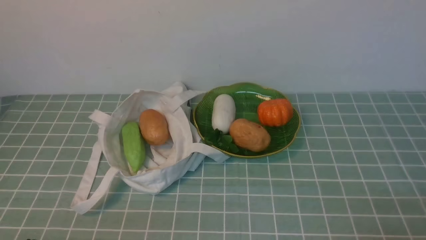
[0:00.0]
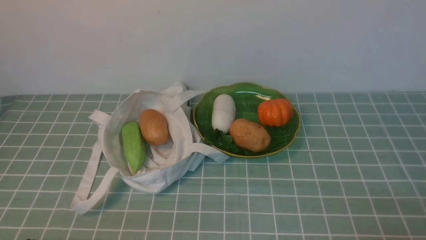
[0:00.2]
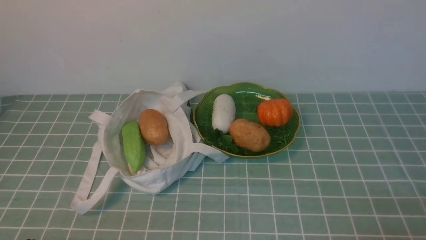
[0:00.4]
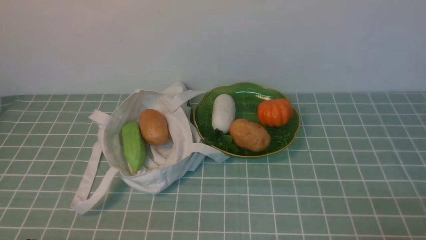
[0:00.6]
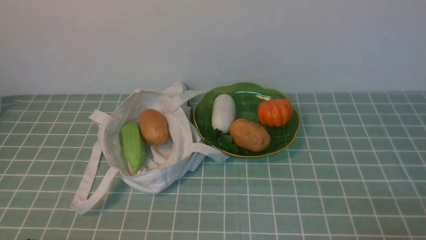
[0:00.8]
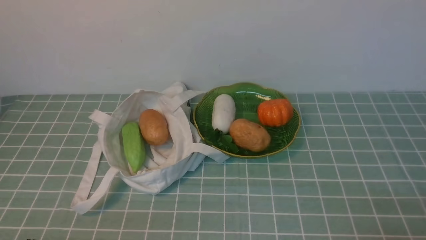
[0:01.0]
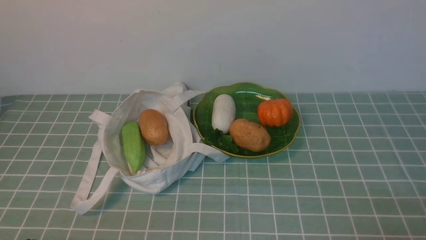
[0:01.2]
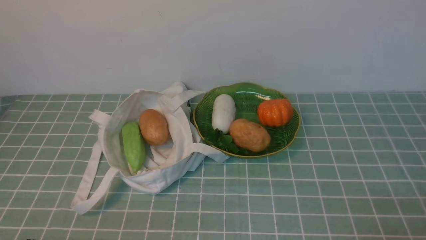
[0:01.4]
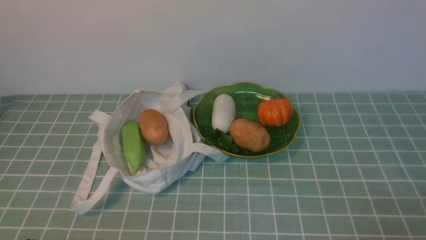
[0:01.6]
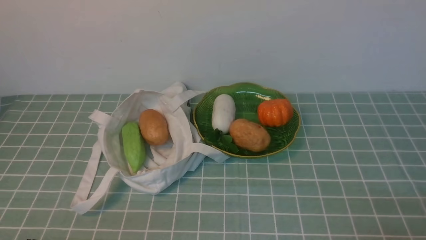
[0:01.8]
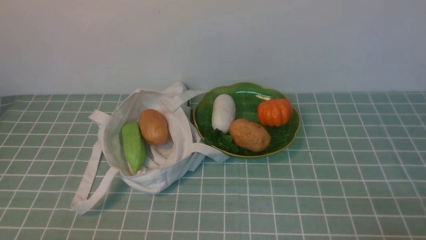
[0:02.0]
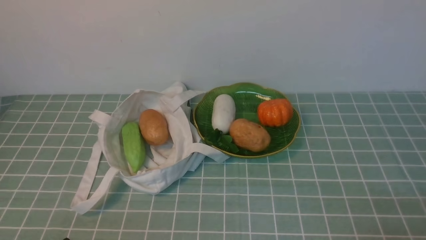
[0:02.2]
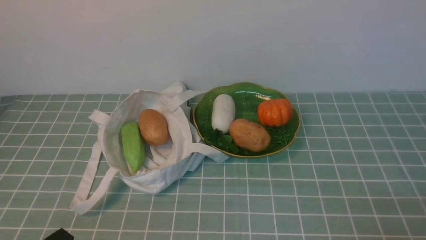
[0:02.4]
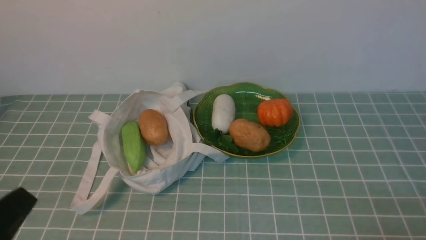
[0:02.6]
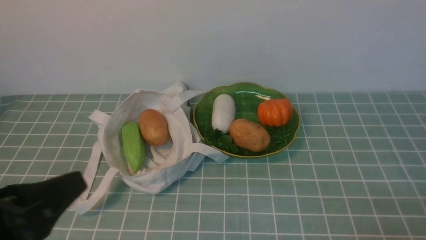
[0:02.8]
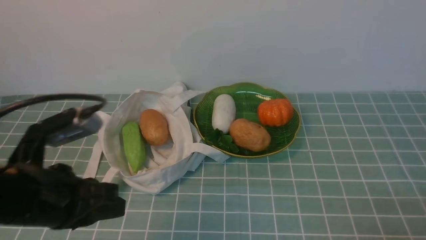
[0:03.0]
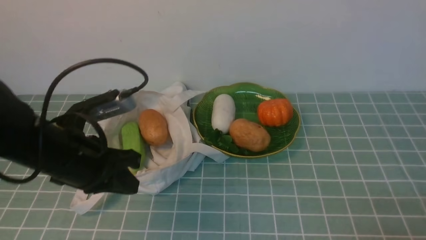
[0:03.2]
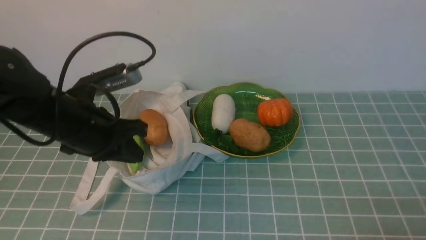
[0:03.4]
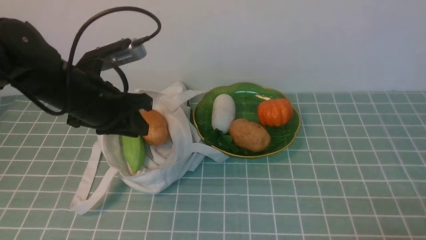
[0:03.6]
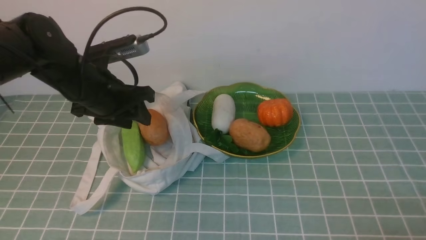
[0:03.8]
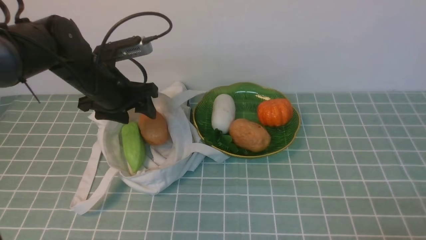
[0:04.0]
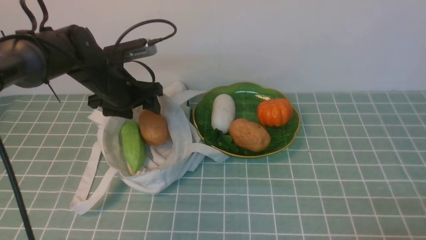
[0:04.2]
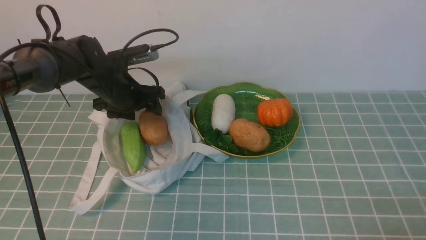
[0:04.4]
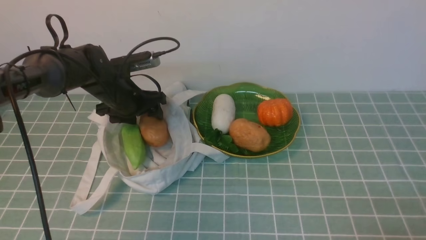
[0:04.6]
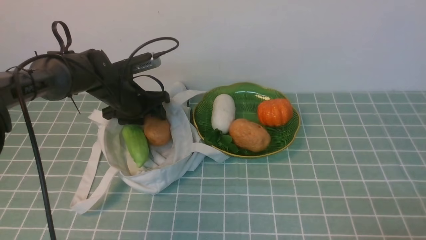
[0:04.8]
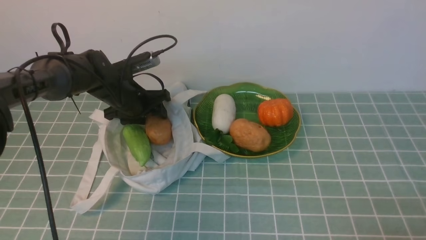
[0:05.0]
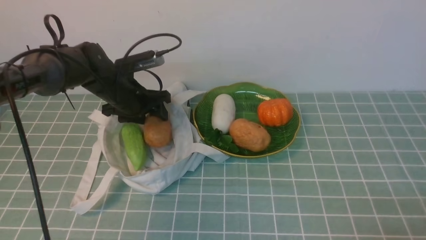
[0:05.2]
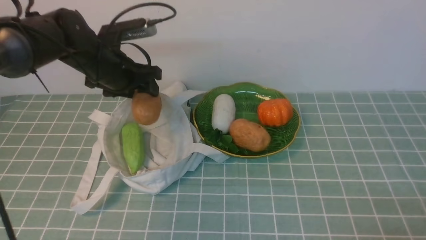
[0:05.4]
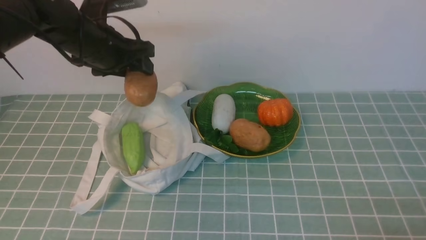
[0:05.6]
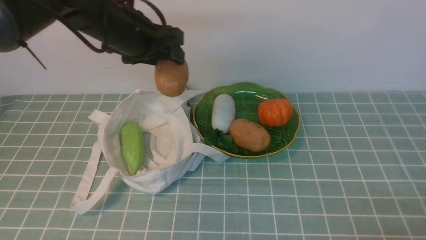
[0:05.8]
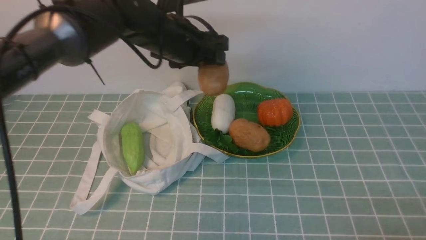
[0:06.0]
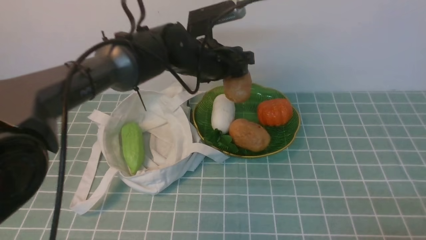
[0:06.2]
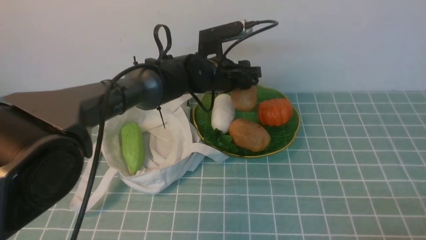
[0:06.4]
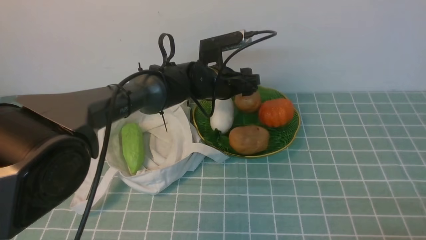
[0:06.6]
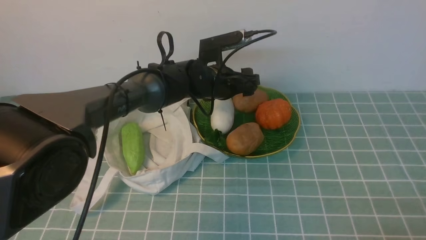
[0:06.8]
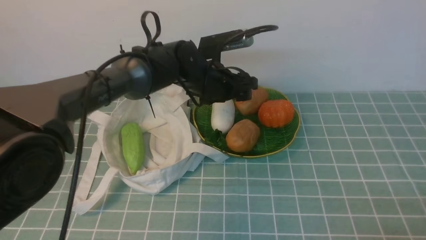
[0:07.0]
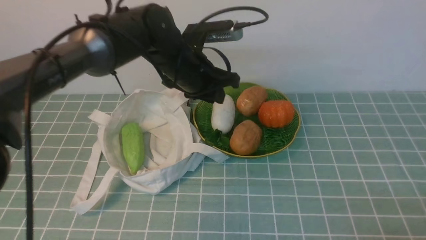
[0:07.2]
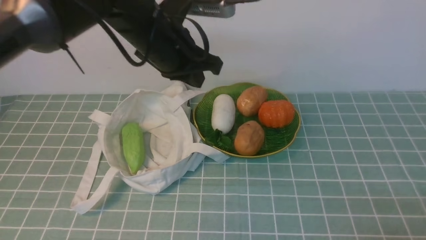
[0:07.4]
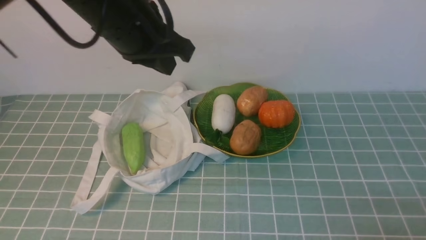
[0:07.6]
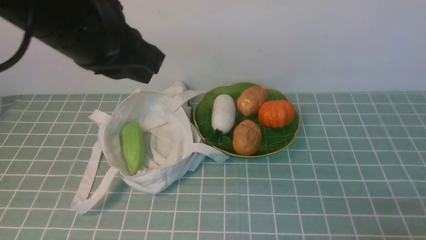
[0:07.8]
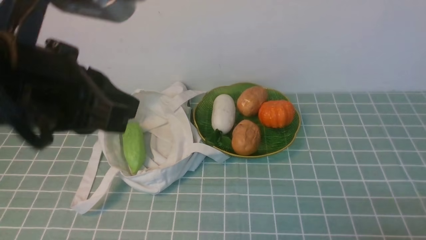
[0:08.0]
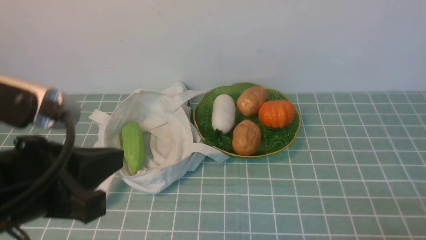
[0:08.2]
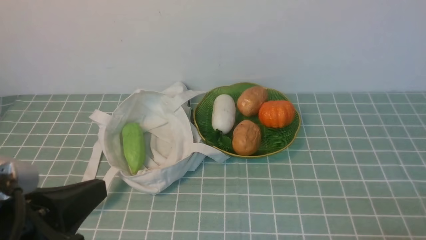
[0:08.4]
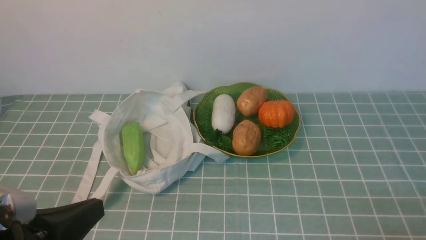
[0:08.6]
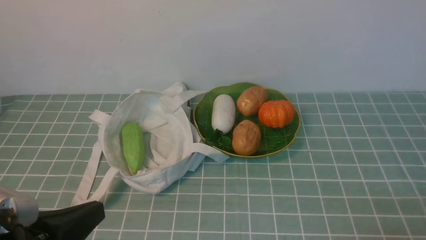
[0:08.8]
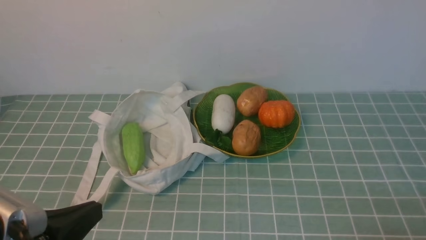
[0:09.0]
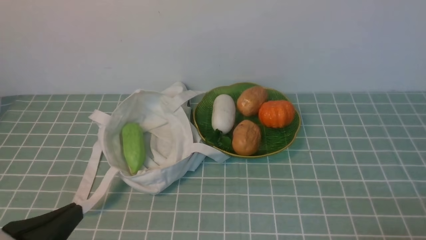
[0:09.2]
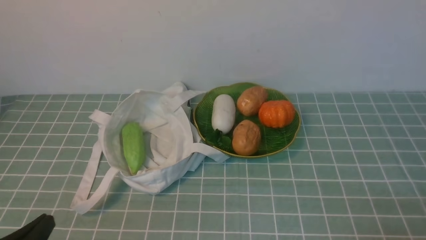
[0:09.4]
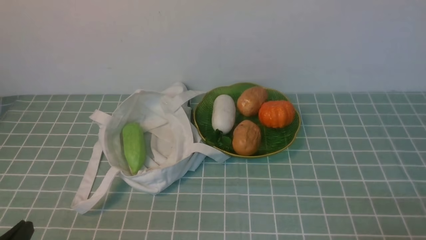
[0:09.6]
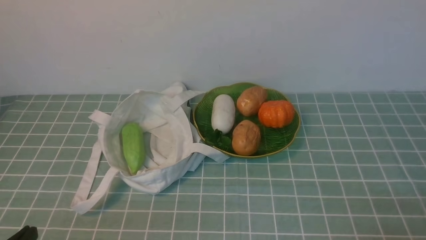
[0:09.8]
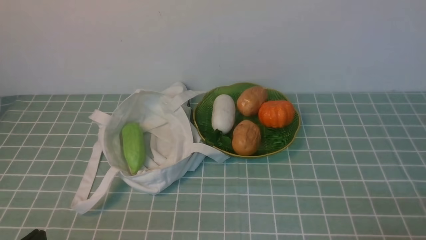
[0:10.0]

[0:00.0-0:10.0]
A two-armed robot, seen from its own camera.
Task of the whole recording: take vegetables from cloth bag on blue coffee tablecloth place on plate.
Step, 0:00.0 to 0:05.0: Grasp the potato with left gripper.
Step, 0:05.2 to 0:06.4: Place the potato on the plate with left gripper.
0:00.0 to 0:01.4: The two grippers keep their place.
0:01.4 to 0:02.8: The left gripper is displaced upward and forward by about 15 cm.
0:02.8 to 0:04.2: The left gripper travels forward by approximately 30 cm, and opens its fingers.
0:04.2 to 0:05.8: The left gripper is displaced upward and to the right by about 10 cm.
0:05.8 to 0:07.2: The left gripper shifts roughly 5 cm to the right, travels downward and back again, about 10 cm each way, and closes its fingers.
0:07.2 to 0:08.6: The left gripper shifts approximately 35 cm backward and to the left.
0:08.6 to 0:10.0: The left gripper shifts approximately 10 cm downward.

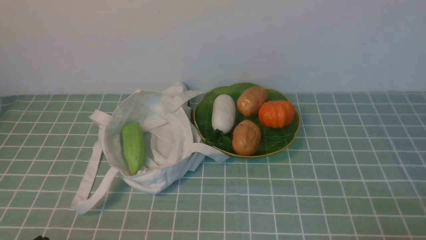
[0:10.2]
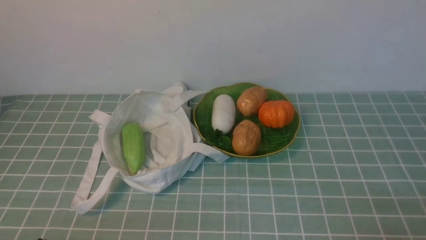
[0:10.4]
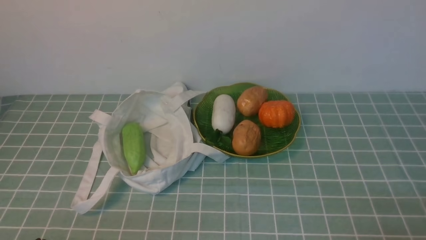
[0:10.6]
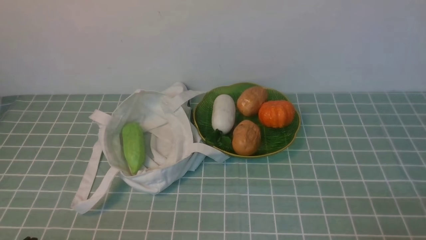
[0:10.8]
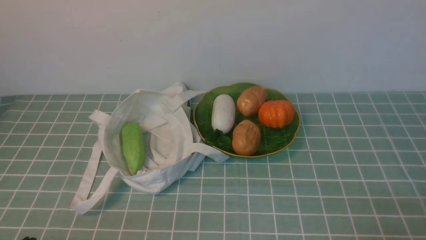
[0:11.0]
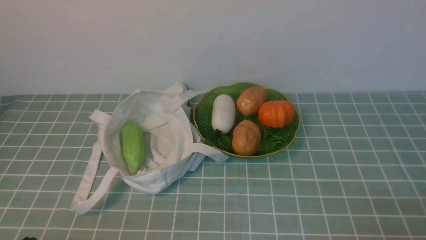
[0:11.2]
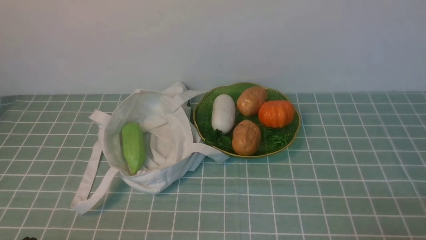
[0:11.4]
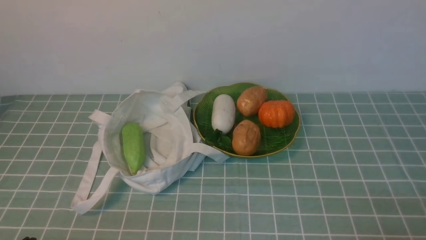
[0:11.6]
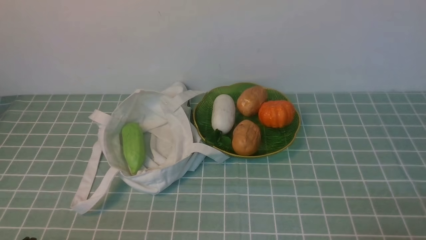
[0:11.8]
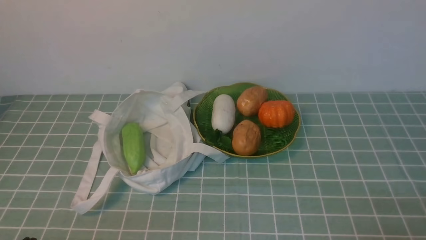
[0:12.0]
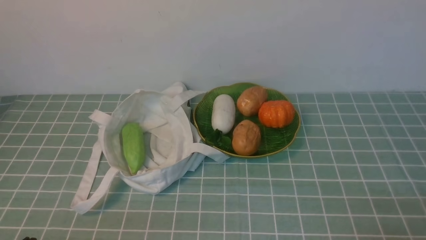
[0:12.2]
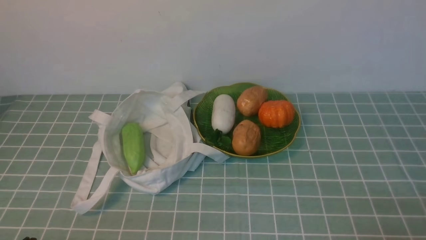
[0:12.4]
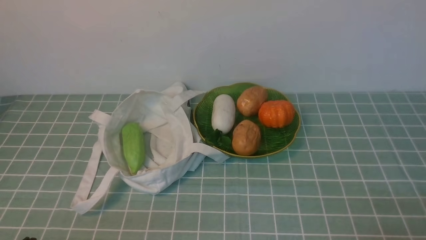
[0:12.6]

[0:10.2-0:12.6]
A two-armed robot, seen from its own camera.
Task of the whole recording: take vegetables from cloth bag on blue coffee tablecloth place on plate.
0:11.4 to 0:12.6: Both grippers stay about where they are.

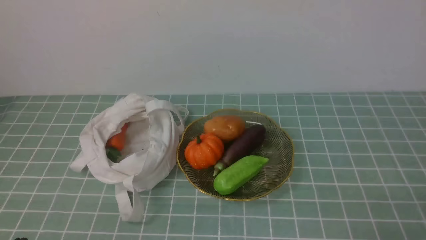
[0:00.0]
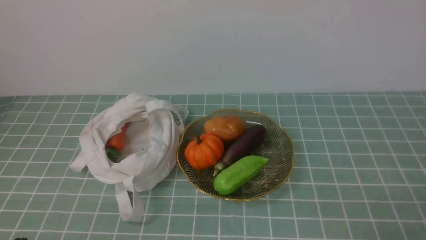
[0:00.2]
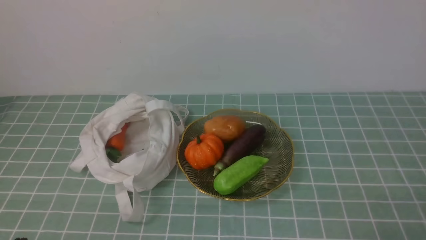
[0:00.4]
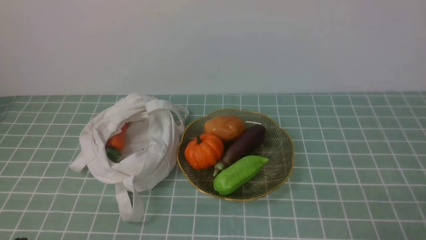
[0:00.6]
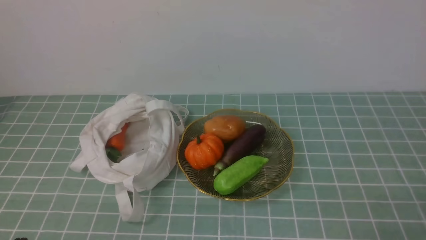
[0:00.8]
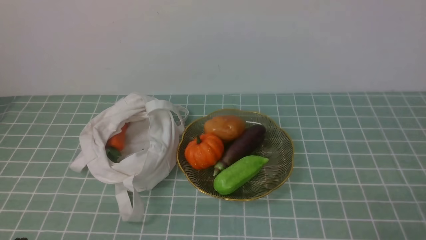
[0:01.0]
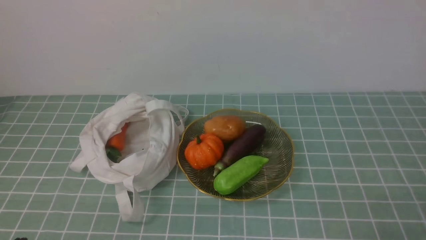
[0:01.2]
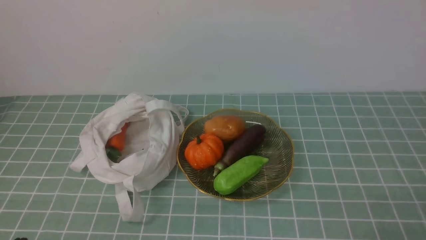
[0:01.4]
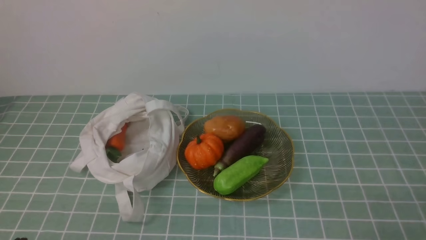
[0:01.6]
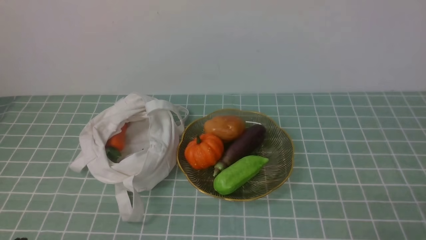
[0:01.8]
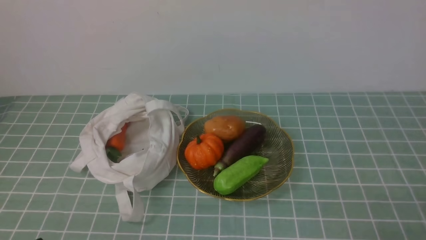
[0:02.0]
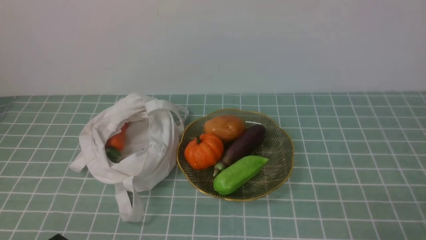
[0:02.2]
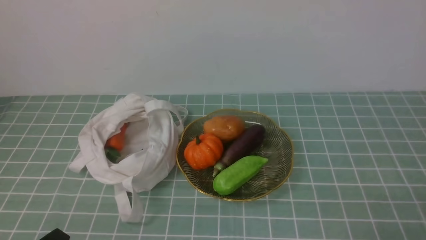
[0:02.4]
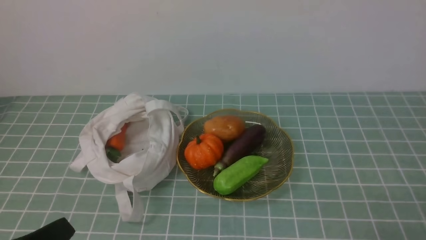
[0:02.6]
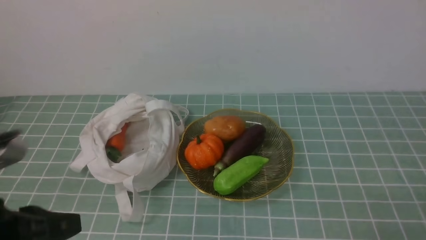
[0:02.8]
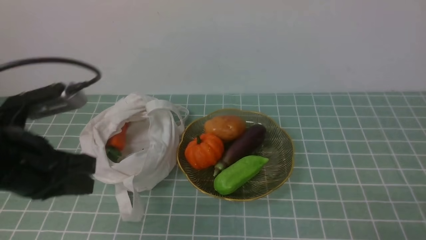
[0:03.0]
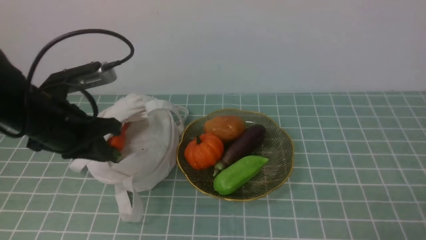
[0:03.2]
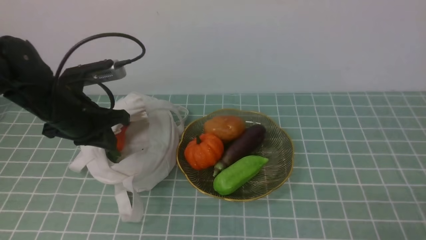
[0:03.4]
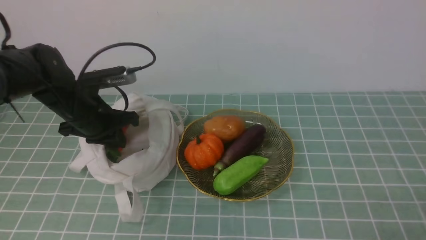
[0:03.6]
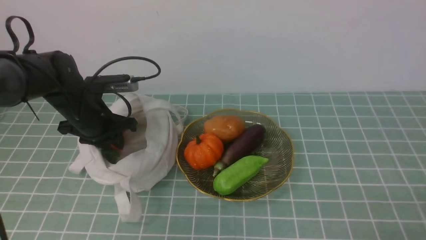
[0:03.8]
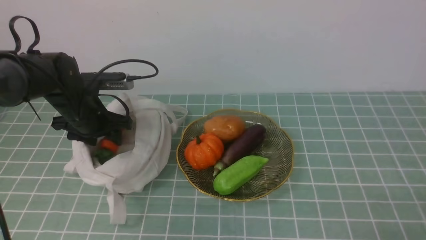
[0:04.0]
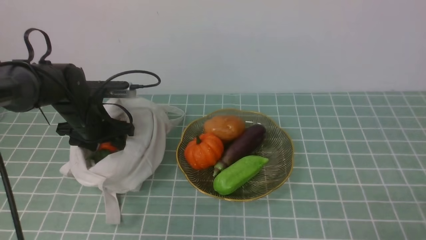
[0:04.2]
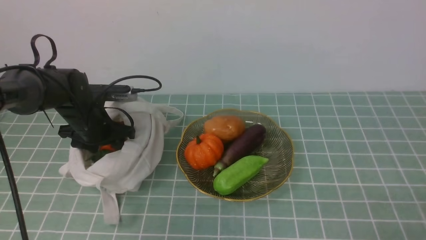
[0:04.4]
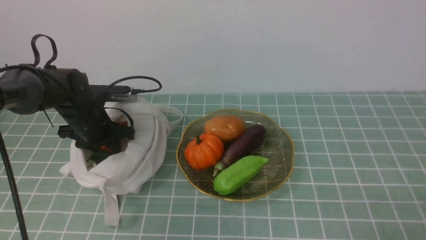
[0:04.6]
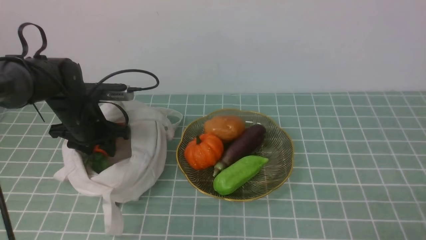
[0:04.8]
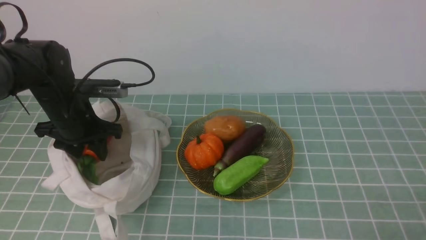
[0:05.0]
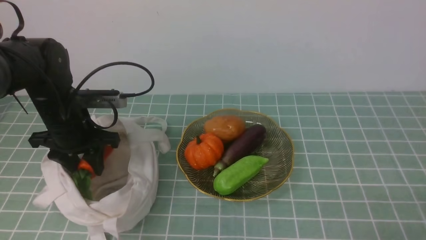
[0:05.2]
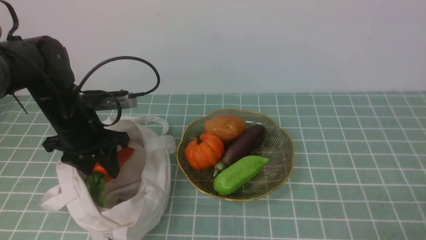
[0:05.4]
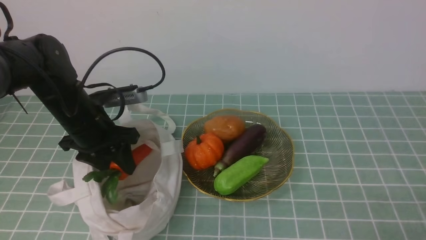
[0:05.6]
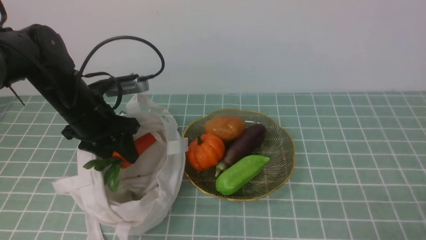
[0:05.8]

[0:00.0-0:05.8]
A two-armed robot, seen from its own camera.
Task of the whole recording: take vegetables from cloth bag on blue coffee tablecloth place on plate.
Step, 0:00.0 to 0:04.6: Grasp the radish with left gripper.
0:01.4 to 0:02.8: The left gripper shifts about 10 cm upward.
0:02.8 to 0:04.4: The left gripper moves forward, some 30 cm, and opens.
0:04.4 to 0:05.8: The left gripper moves upward, approximately 5 cm.
